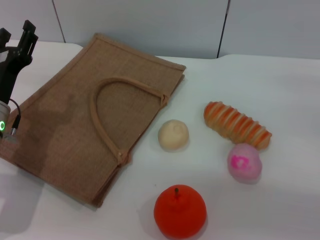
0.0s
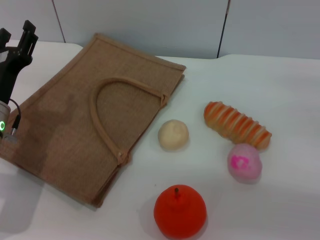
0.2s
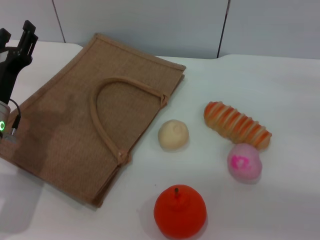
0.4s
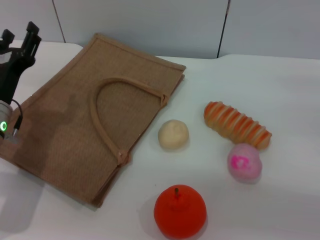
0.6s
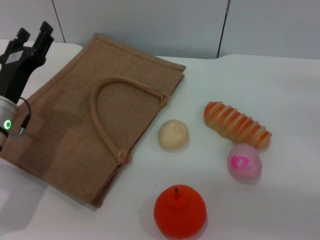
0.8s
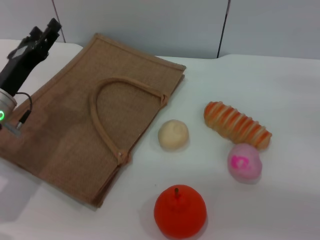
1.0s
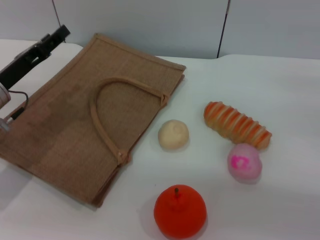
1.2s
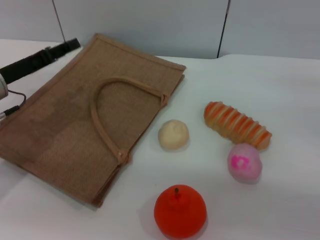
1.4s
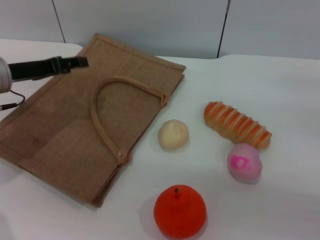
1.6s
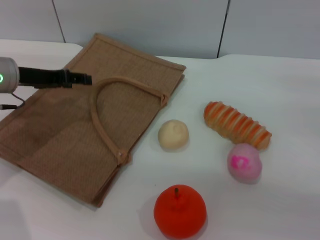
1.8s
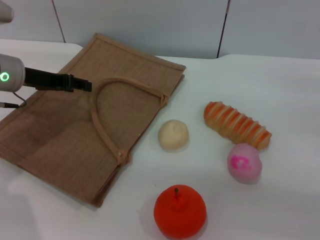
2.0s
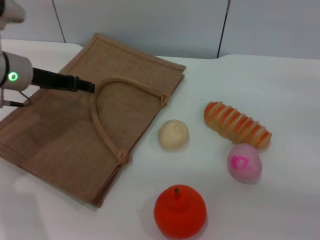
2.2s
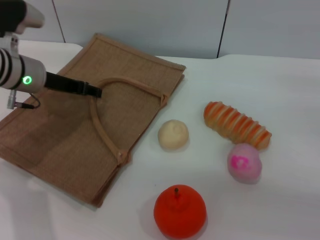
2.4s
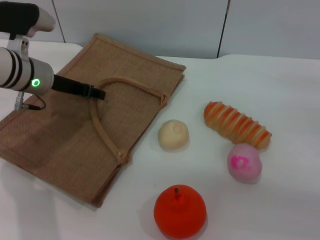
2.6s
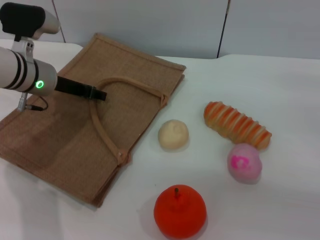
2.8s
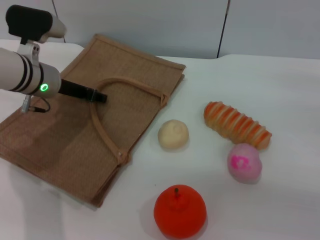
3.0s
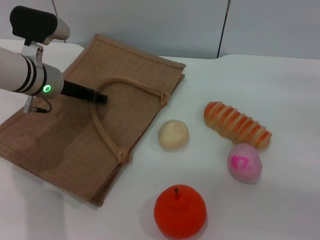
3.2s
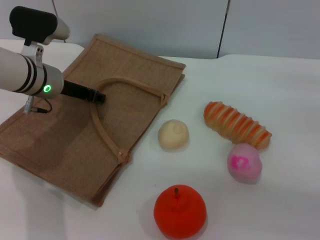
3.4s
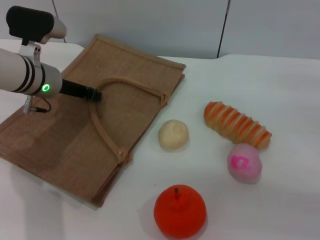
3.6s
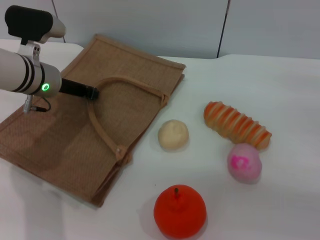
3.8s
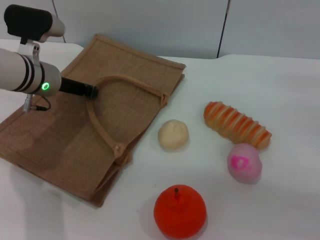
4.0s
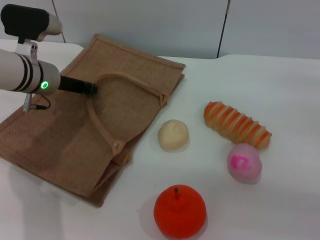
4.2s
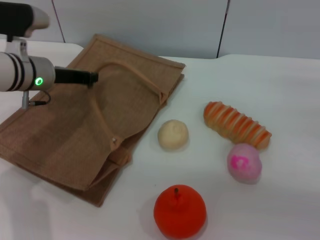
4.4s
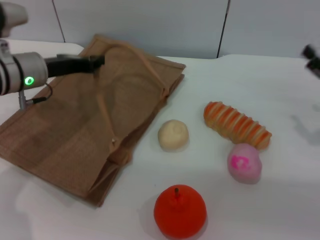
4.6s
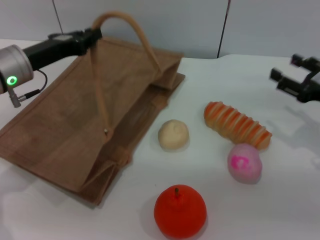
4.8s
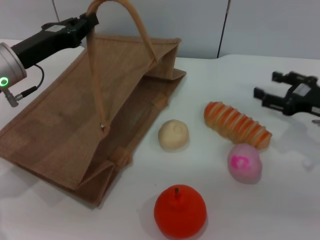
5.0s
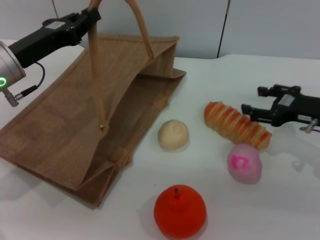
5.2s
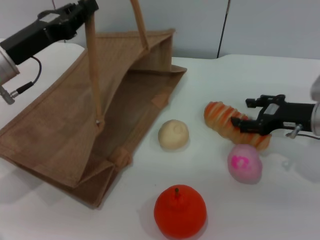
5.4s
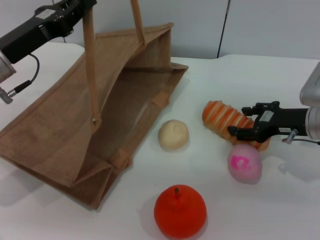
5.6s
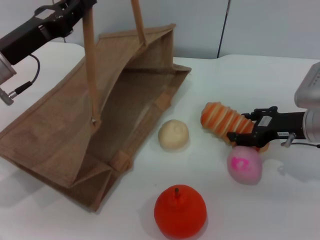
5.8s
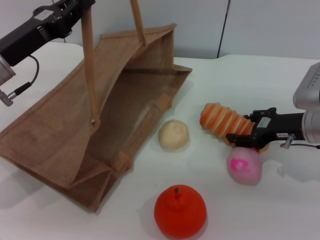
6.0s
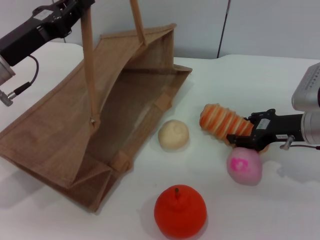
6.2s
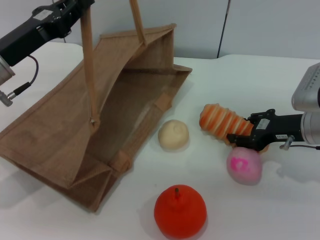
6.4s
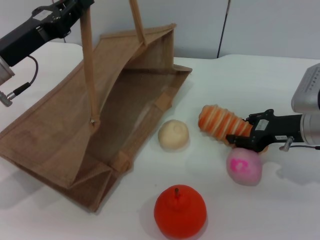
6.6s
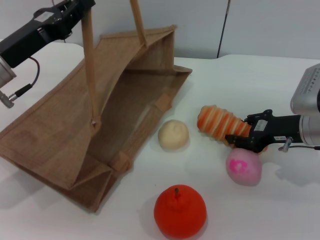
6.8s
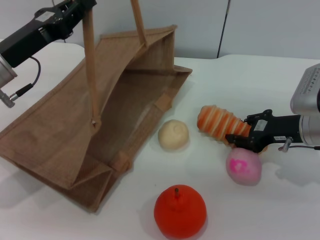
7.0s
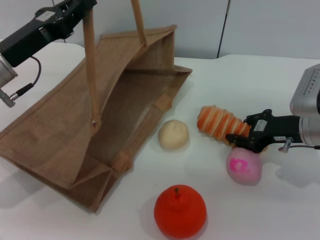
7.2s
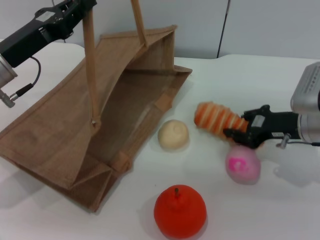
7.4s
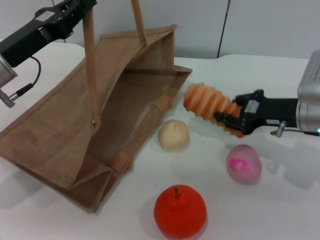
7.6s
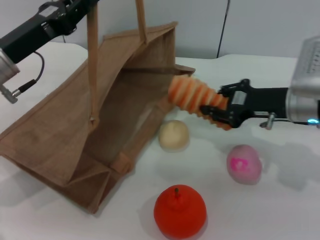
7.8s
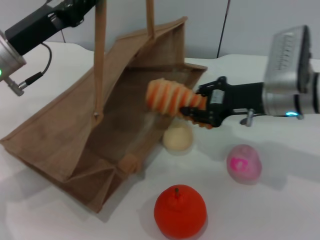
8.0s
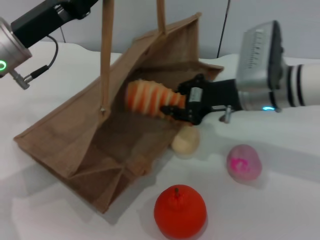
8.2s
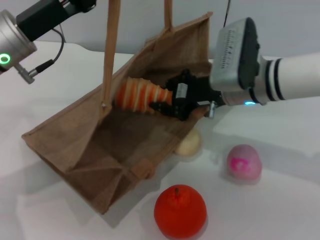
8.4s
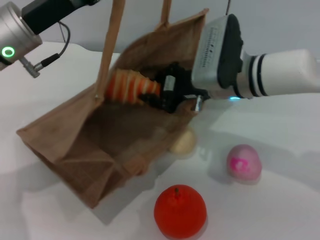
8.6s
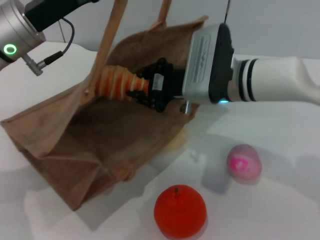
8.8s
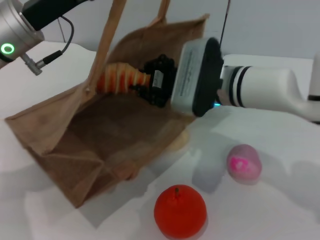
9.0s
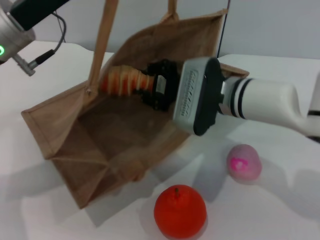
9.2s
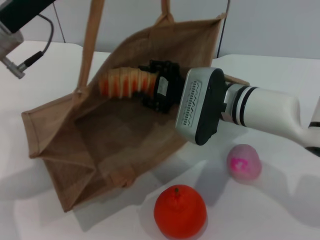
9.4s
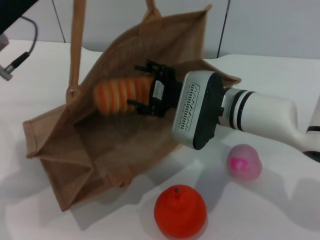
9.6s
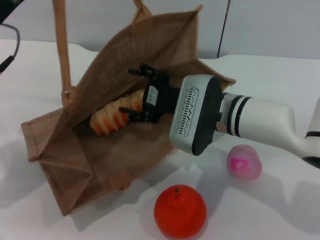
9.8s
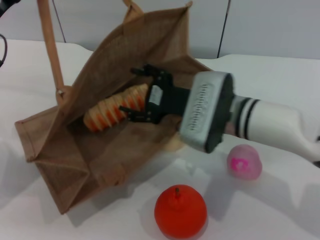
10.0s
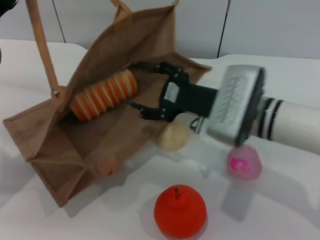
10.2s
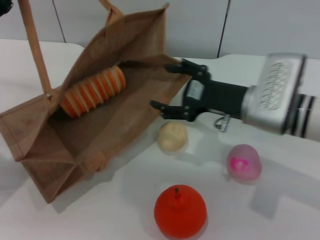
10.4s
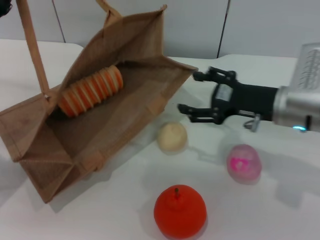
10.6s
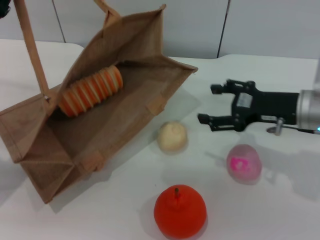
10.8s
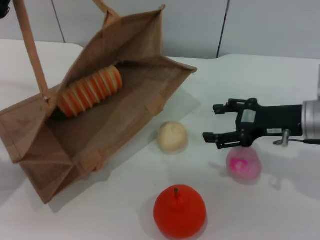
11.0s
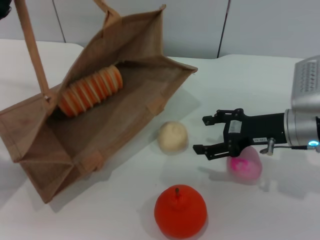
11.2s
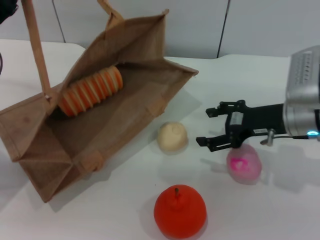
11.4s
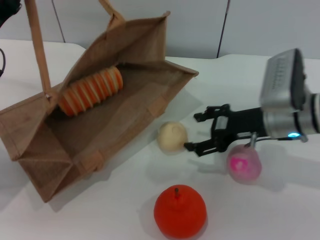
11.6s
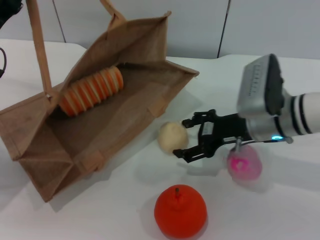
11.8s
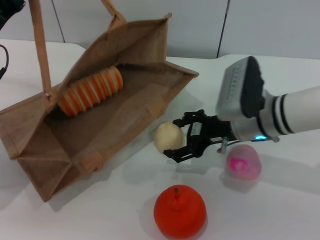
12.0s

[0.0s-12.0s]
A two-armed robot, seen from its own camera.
Task of the whole recording: pick up the bread and egg yolk pastry from the table and place it in the brown handbag.
Step, 0.0s to 4.4s: Lift the woven bag with the left gripper to open it.
Step, 4.6s to 7.6s: Pick up the bread with the right gripper.
Step, 7.8s to 10.4s: Place the bread into the woven bag with the right gripper.
0.0s to 1.6s: The left gripper heads forward and upward, covering approximately 10 cm.
1.6s to 3.0s: The left gripper travels to the right by approximately 5 cm.
3.0s to 4.4s: The left gripper closes its fingers.
4.4s to 6.0s: The right gripper shifts approximately 10 cm to the left and forward; the left gripper heads backward, covering some 10 cm.
6.0s to 7.6s: The right gripper closes.
7.6s to 9.0s: The left gripper changes place by some 5 cm. The right gripper is displaced to the left by about 15 cm.
9.0s to 10.4s: The right gripper heads to the right, covering about 5 cm, and opens; the left gripper heads to the left and downward, covering approximately 10 cm.
10.4s to 12.0s: The right gripper travels to the right and back again, about 10 cm each way.

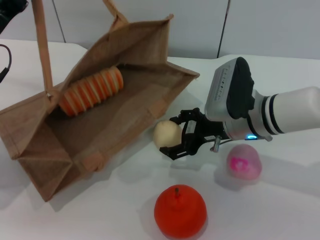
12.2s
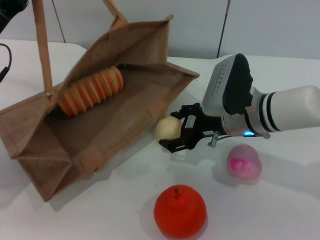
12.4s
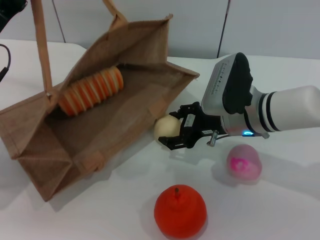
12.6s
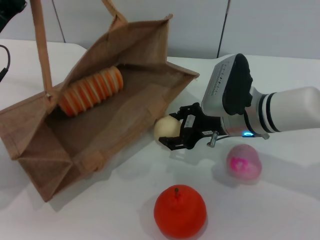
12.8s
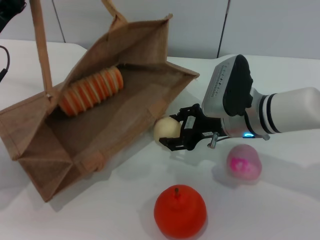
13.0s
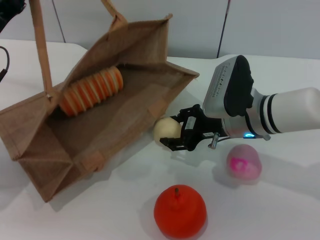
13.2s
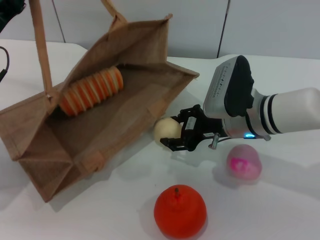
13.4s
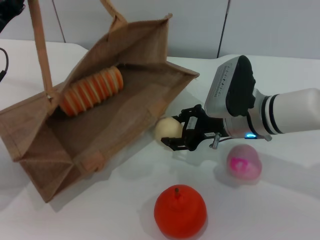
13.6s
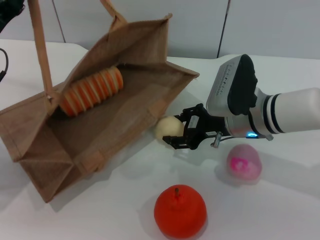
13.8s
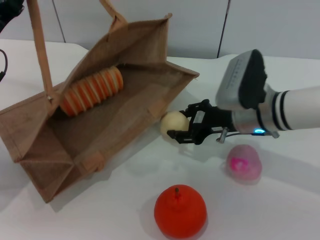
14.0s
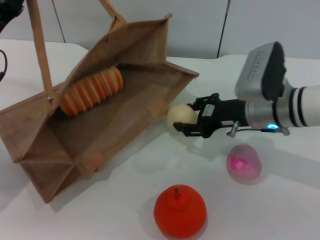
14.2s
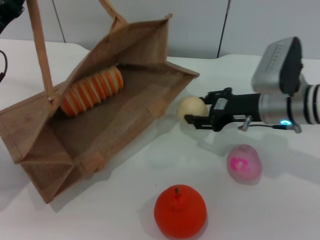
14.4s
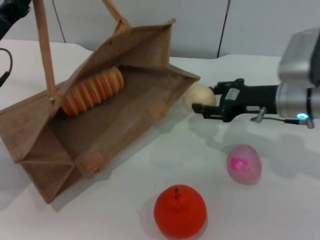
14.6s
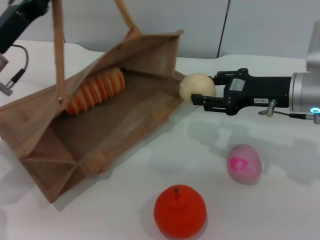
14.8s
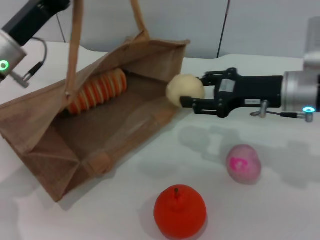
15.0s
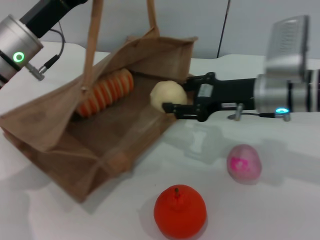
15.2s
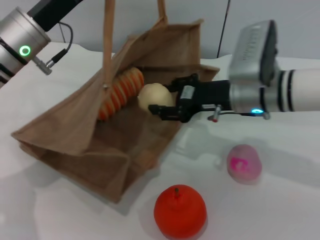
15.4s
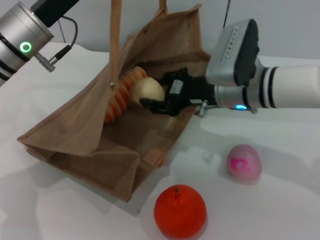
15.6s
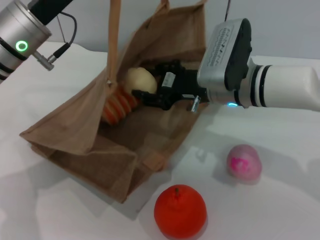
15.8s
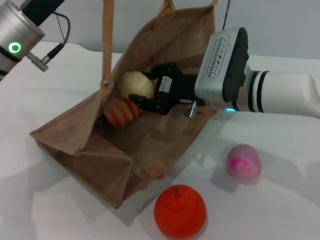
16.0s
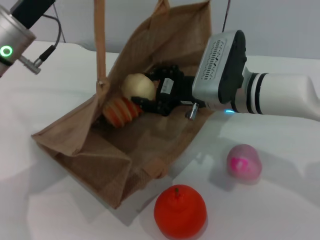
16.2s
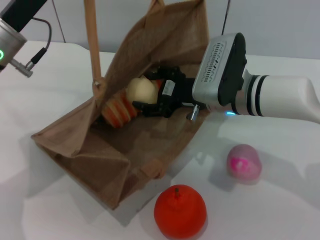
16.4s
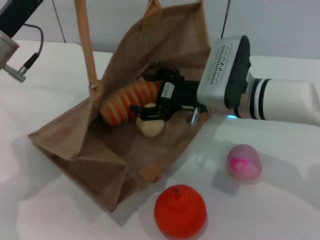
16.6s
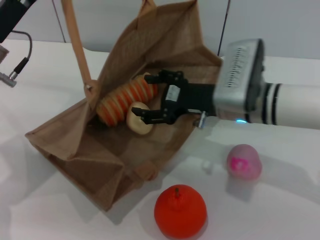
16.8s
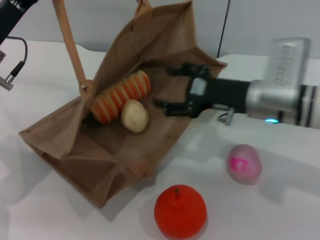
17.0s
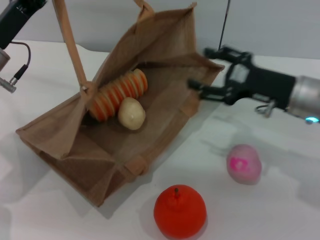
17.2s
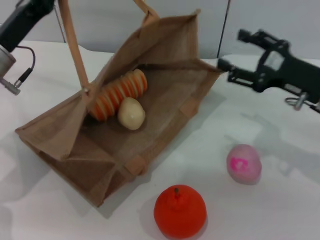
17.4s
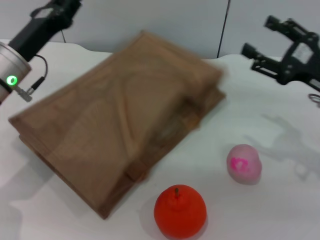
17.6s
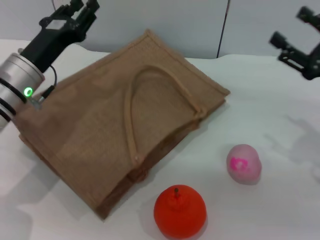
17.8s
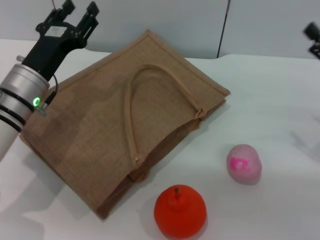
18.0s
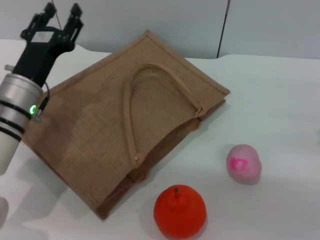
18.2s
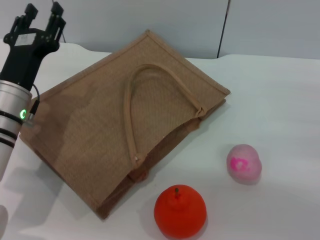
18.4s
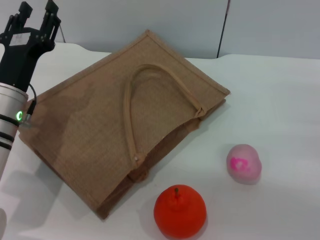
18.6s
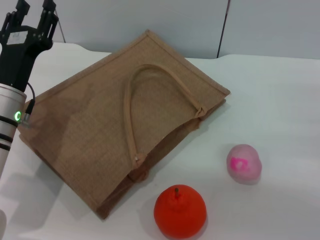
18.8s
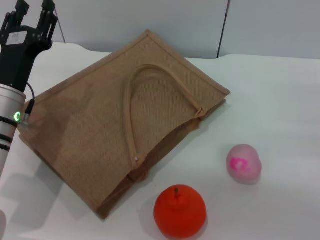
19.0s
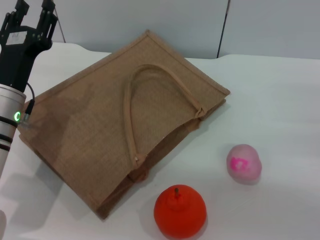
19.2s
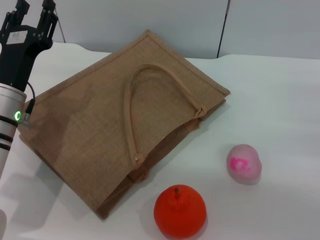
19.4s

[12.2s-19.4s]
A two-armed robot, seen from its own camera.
Task of the whole recording: pick up the bread and egg yolk pastry from the table and place it in the brown handbag.
Step, 12.2s to 14.4s: Pick up the egg yolk pastry with the right gripper.
Step, 14.6s to 17.2s: Place the egg yolk pastry into the woven bag with the right gripper.
Step, 17.4s to 18.2s: Lower the woven bag with the left gripper to close it.
12.2s to 13.6s: The right gripper closes.
13.6s to 15.0s: The right gripper shifts approximately 10 cm to the right and upward.
15.0s to 16.6s: The right gripper goes about 10 cm to the left.
16.6s to 18.0s: The left gripper goes some 5 cm downward; the right gripper is displaced to the right by some 20 cm.
18.0s to 19.4s: The left gripper opens its fingers.

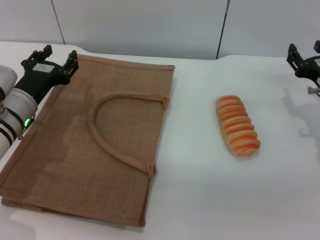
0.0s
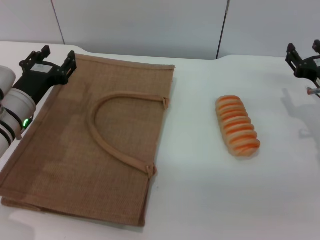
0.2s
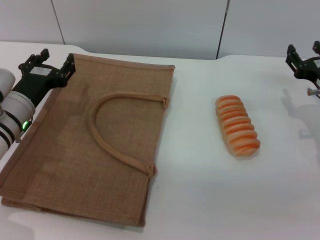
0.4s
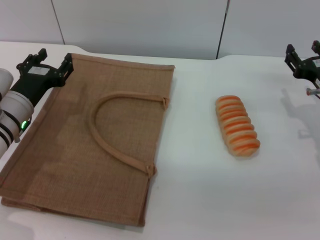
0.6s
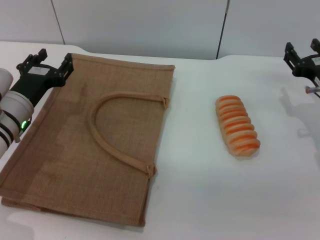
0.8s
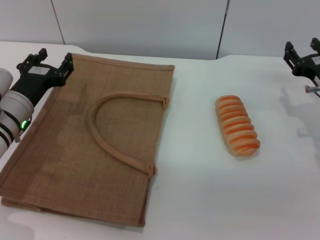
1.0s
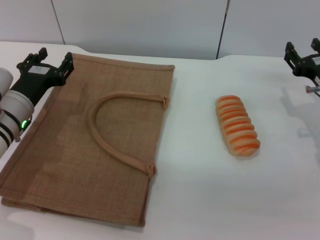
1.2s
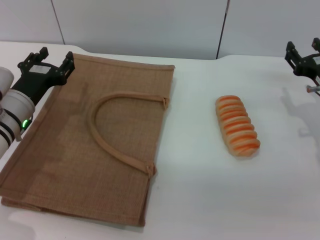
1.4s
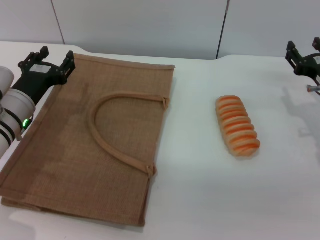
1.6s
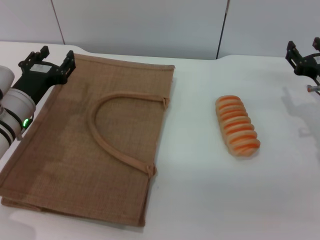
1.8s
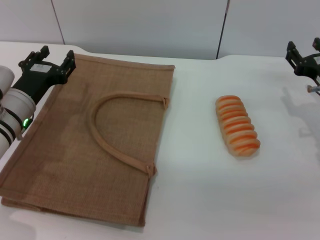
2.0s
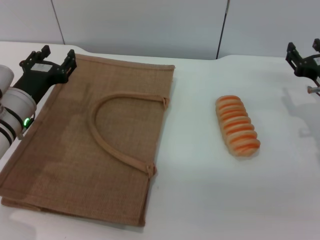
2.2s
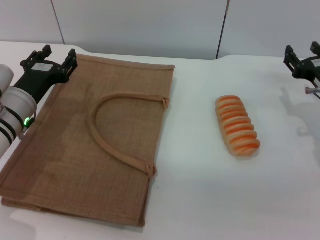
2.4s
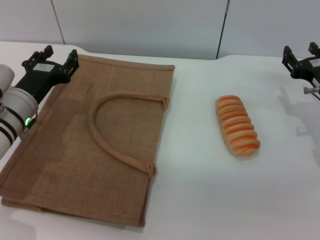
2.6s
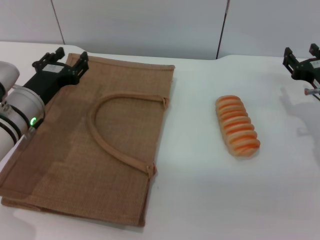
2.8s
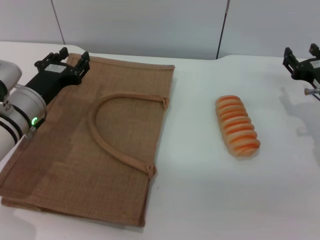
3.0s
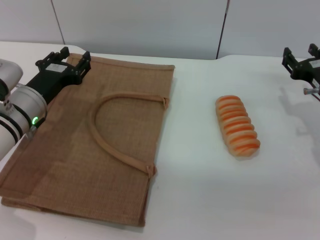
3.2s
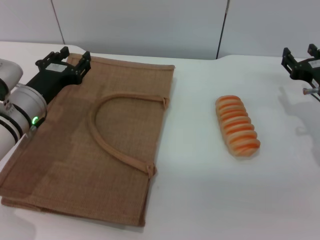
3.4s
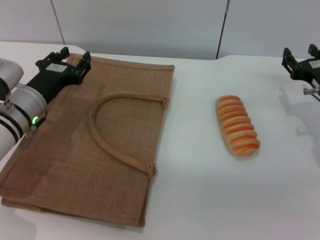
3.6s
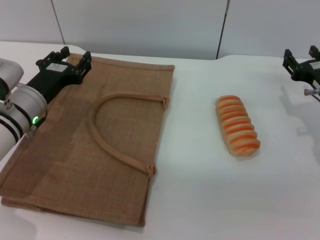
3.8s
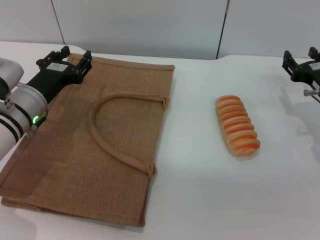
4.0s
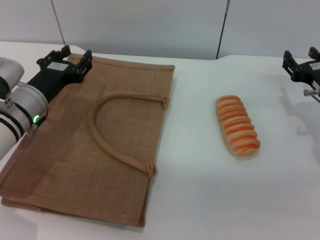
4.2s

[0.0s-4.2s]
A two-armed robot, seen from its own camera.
Task of the whole recording: pick up the bread from the table and place it in the brown handbag.
0.0s to 1.4s: Both grippers stay about where they are.
1.4s to 2.8s: The grippers stay close to where they were, moving slightly.
2.8s to 4.2s: Both grippers stay put.
